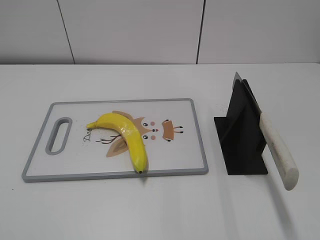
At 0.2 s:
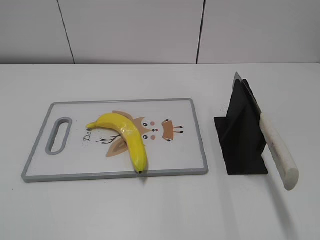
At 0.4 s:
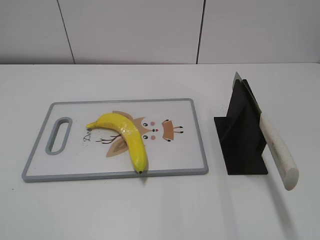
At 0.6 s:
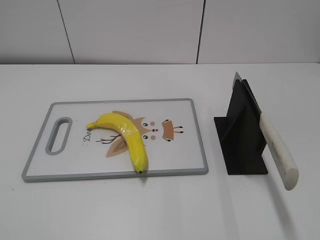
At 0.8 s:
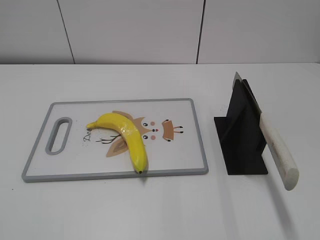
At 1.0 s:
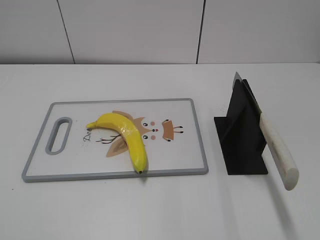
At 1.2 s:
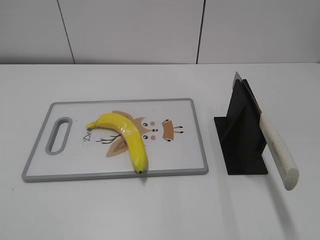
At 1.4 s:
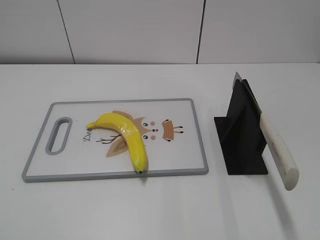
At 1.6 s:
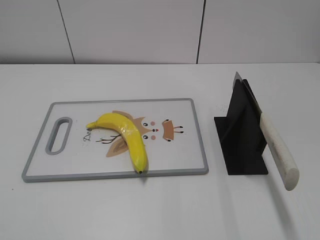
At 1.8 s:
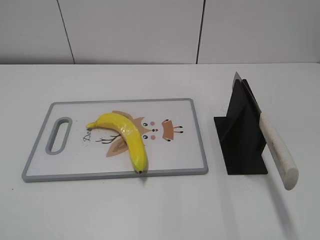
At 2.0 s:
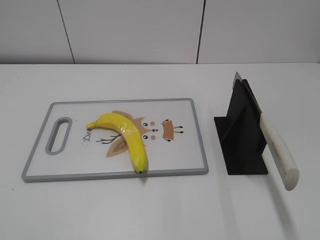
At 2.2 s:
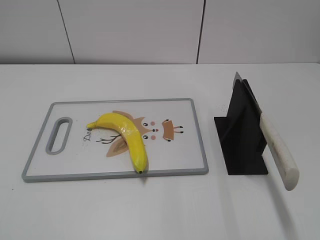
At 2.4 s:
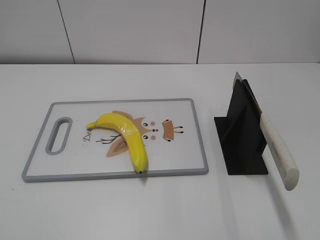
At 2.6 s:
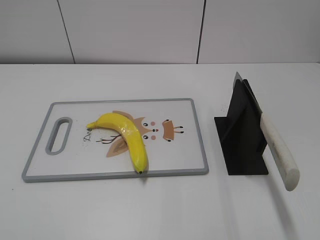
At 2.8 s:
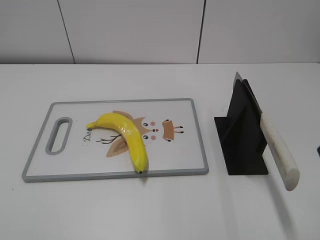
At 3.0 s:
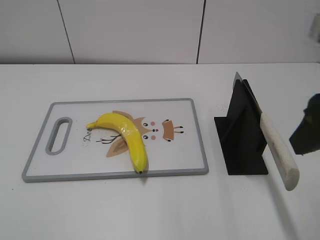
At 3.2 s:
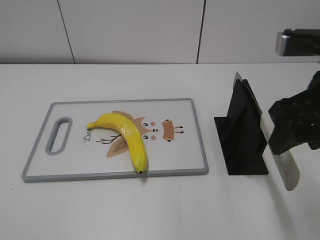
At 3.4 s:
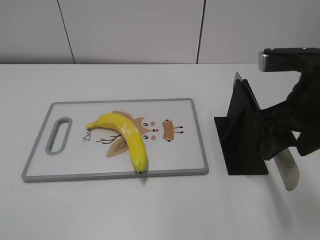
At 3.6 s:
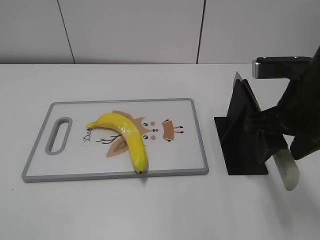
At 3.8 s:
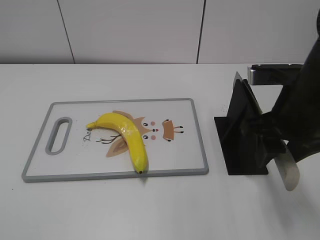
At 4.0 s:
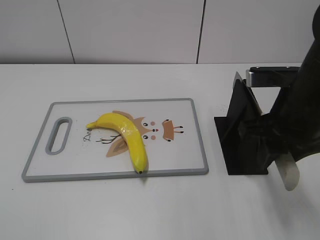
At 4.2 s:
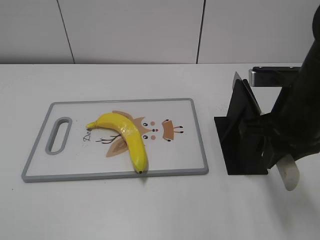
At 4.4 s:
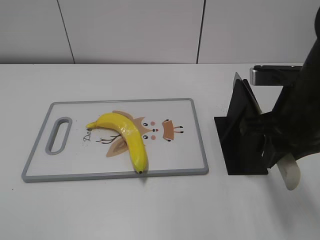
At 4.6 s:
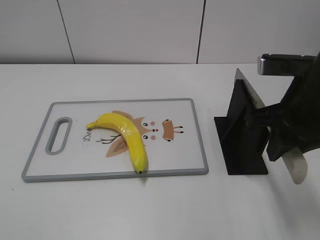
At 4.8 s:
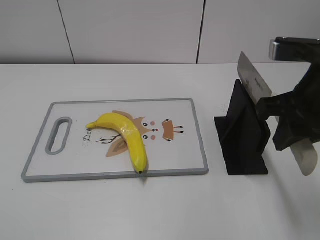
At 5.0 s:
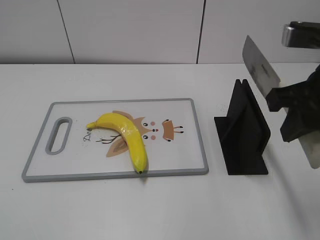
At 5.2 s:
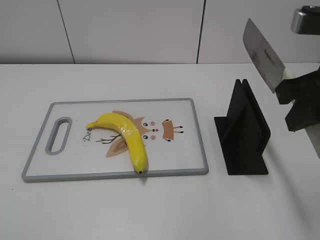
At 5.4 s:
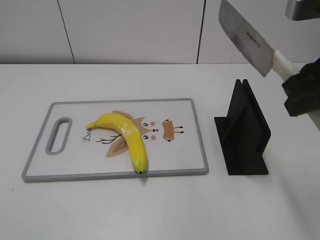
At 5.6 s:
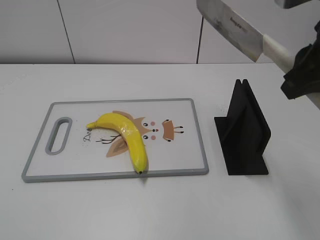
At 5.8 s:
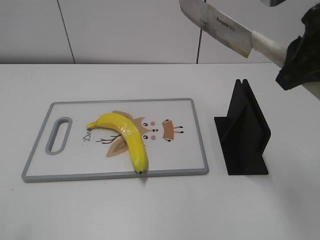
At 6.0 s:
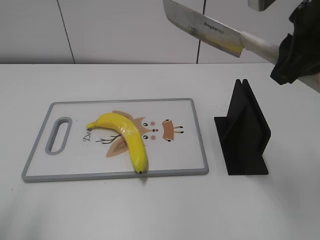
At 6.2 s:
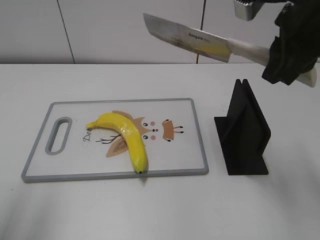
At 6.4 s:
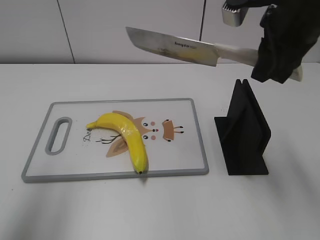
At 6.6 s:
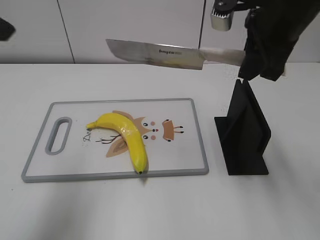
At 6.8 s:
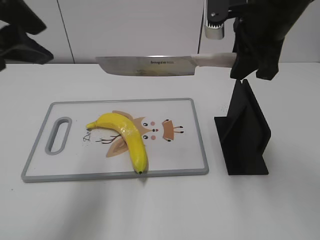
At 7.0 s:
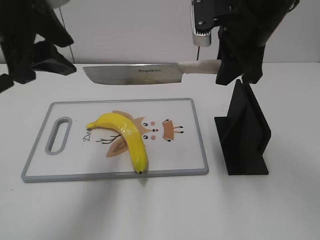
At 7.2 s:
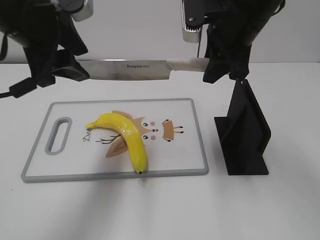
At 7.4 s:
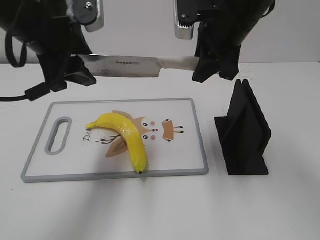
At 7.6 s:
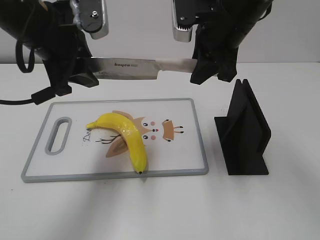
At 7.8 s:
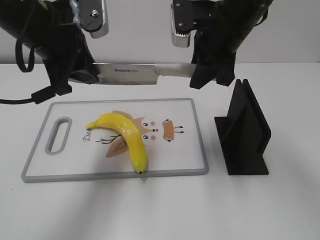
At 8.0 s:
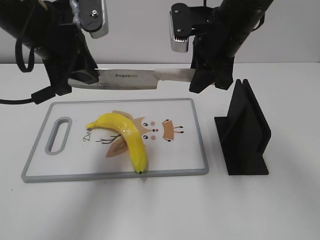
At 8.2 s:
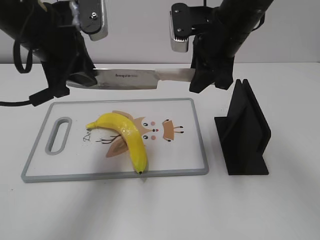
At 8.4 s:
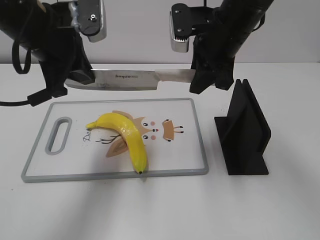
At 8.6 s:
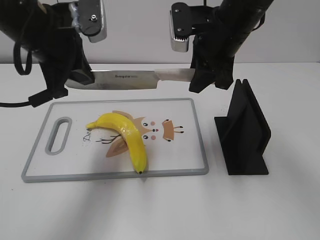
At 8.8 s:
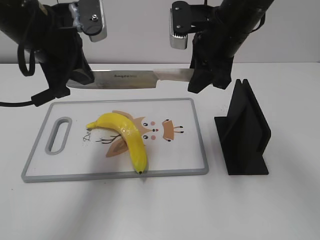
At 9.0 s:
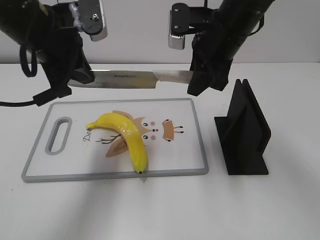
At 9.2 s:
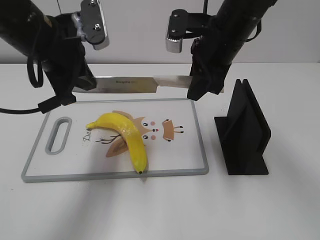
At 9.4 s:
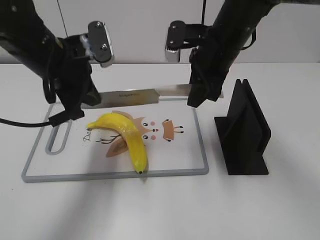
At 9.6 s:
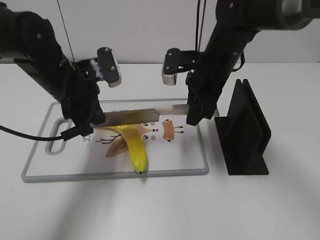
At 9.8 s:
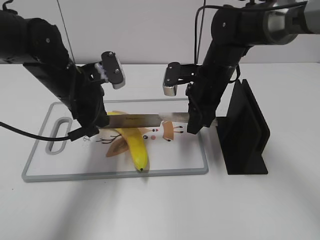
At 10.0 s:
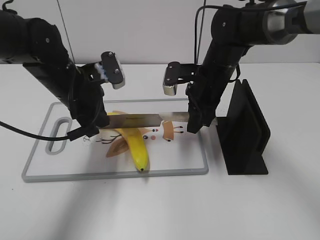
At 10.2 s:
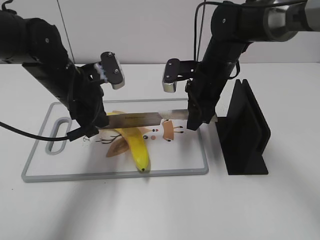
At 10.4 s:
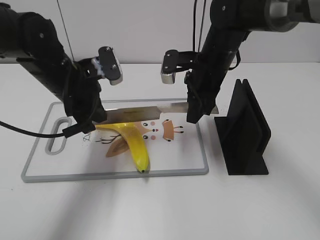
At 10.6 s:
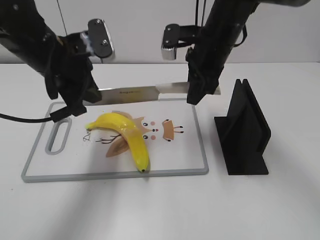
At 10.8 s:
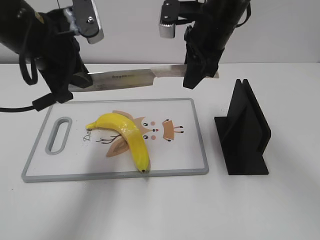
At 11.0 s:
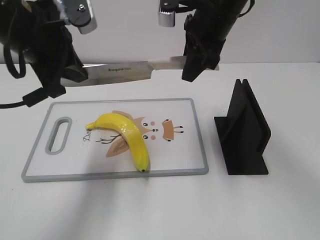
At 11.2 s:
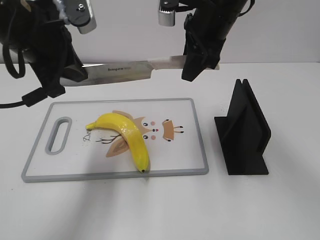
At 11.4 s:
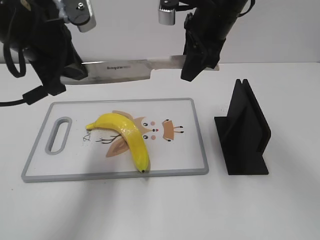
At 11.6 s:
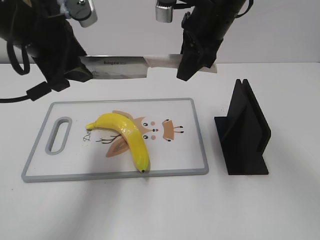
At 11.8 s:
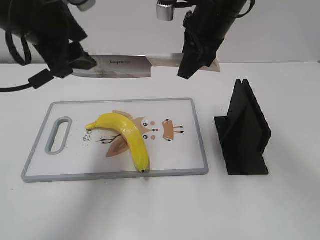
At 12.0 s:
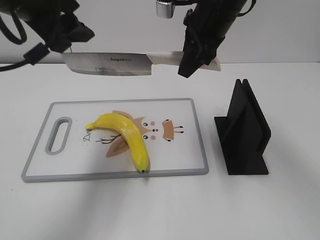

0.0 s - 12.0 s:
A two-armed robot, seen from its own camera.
Task of the whole recording: cut plastic banana.
Step, 0.0 s - 5.0 s: Grab the knife handle with your right hand.
Step, 5.2 s - 10.6 s: Lift the knife with your right hand.
1.6 s - 3.0 s: The right gripper moves forward and to the left, approximately 20 cm.
3.0 s - 4.4 s: The right gripper shifts approximately 10 cm downward and forward, and closes its fingers.
4.4 s - 6.0 s: The right gripper heads upward, covering approximately 10 cm; the left gripper moves forward and upward, some 15 cm.
6.0 s - 7.6 s: The right gripper travels forward, to the left and downward by about 15 cm, while the left gripper heads forward and to the right, covering about 25 cm.
7.6 s - 9.0 s: The left gripper closes up.
9.0 s - 10.4 s: The two grippers go roughly 10 cm downward.
10.4 s - 12.0 s: The two grippers go some 15 cm upward. The left gripper opens.

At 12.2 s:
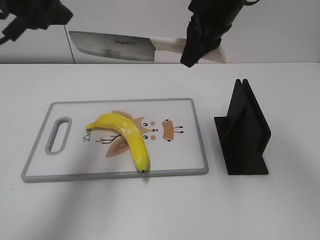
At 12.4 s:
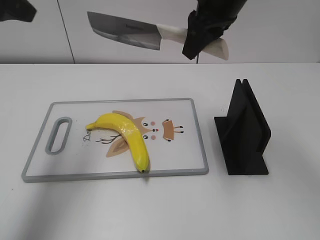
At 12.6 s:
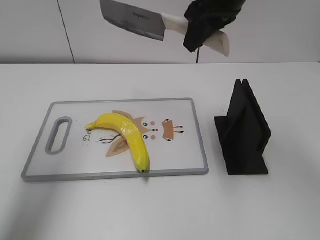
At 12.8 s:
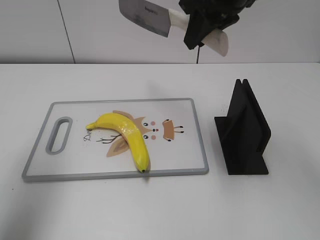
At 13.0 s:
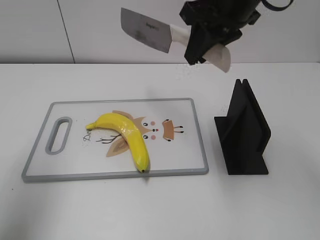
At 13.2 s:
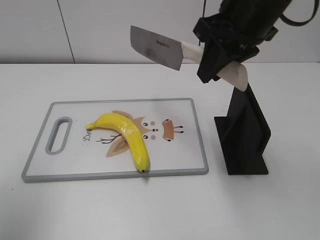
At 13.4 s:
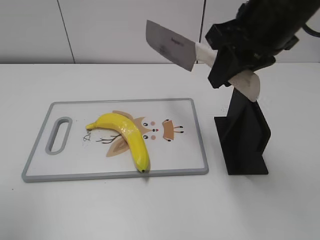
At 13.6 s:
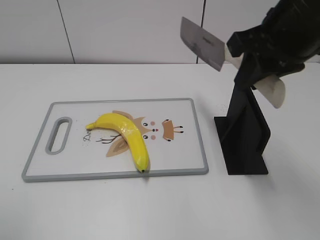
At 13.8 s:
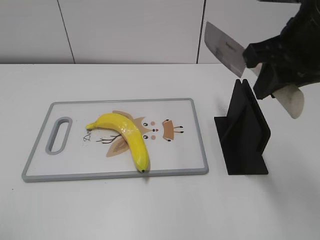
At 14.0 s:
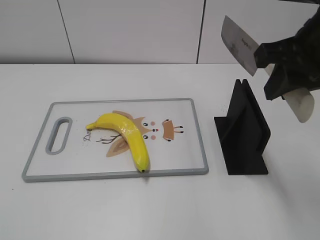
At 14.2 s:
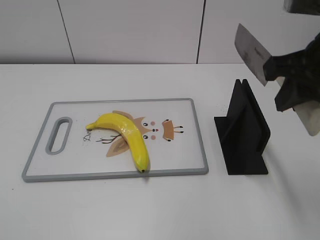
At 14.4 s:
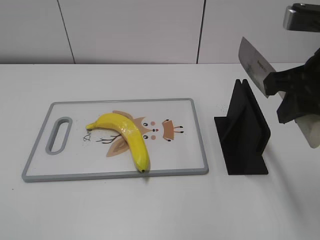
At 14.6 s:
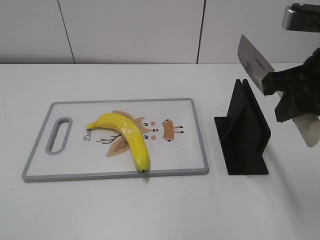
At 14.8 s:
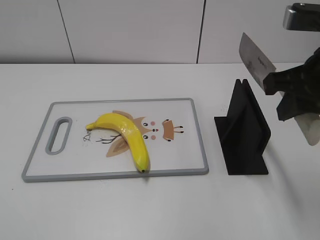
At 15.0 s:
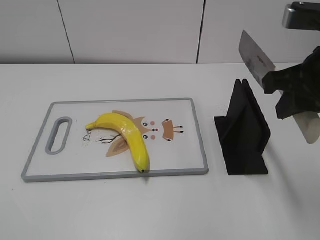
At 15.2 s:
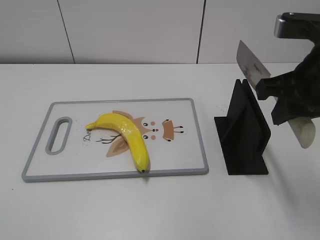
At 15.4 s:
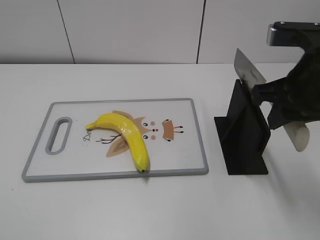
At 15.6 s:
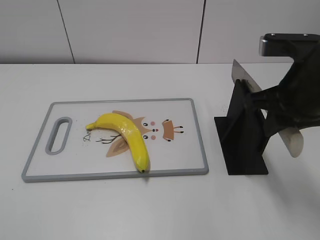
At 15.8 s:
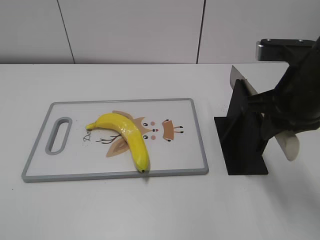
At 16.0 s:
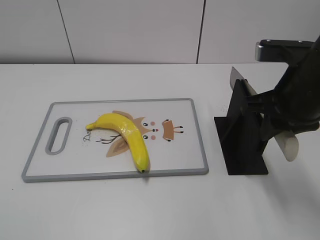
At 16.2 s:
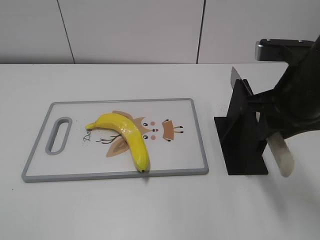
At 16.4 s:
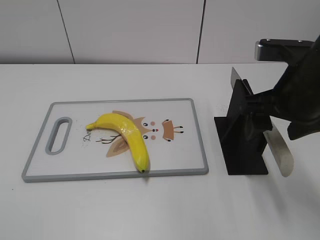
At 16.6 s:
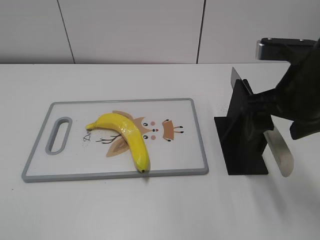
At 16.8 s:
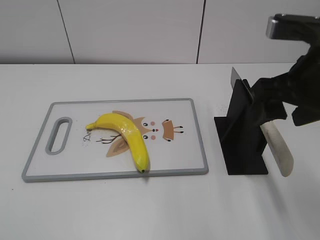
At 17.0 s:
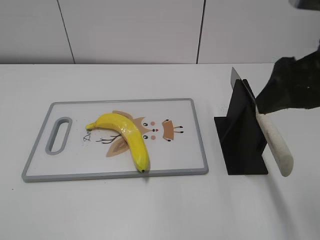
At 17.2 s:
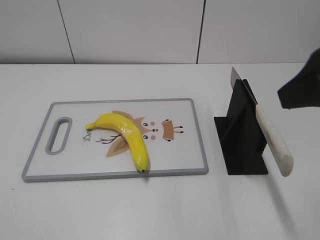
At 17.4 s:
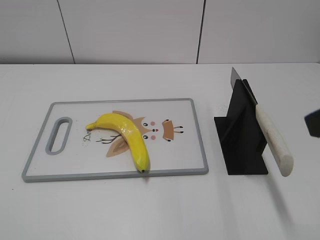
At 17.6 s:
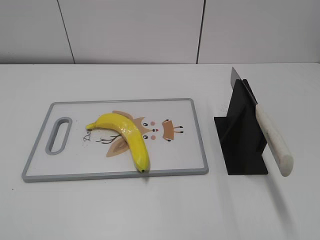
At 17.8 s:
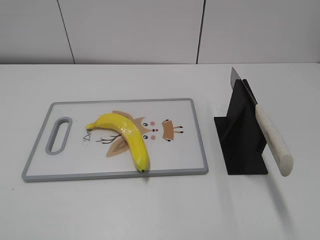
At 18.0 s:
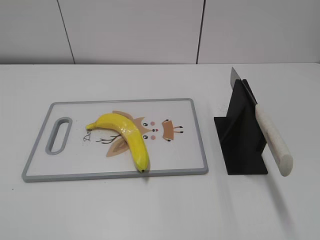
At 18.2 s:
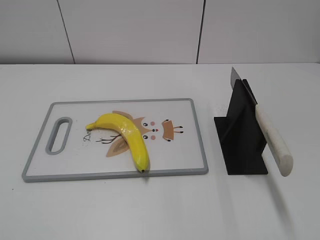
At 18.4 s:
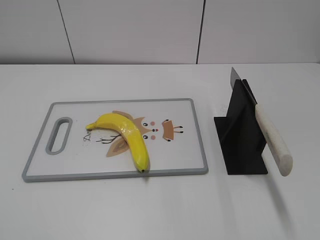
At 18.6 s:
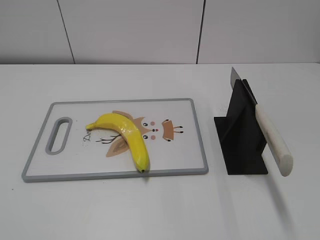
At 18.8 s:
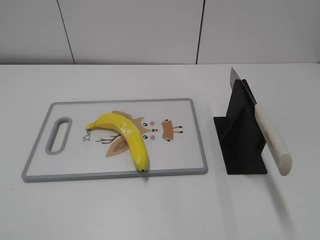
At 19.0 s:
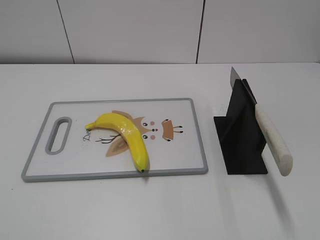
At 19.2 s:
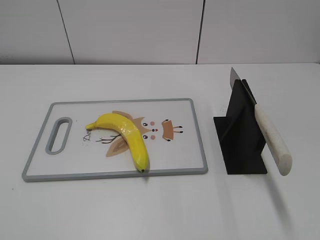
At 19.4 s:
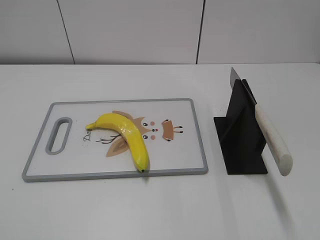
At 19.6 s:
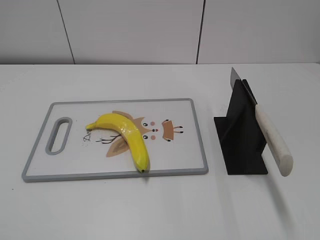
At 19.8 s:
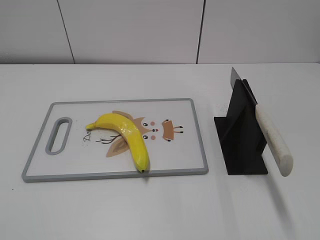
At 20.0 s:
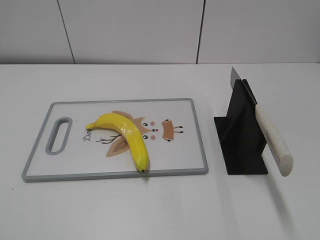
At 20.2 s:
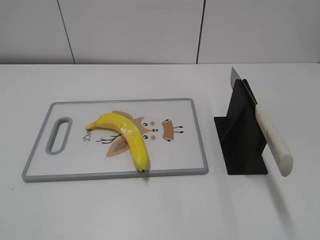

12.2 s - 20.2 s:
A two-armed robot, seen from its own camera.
Task of the whole recording: cut plastic banana.
Step, 12.6 s - 13.6 s: Lift the knife with your right hand.
Step, 13.8 s - 20.2 s: Place the knife on the storage rack with your right hand.
12.2 s - 13.8 s: The right gripper heads backward and to the right, covering some 15 cm; the left gripper moves backward and to the left, approximately 25 cm.
13.8 s - 15.4 s: The right gripper moves some 5 cm.
15.4 s - 17.0 s: The right gripper moves about 5 cm, and opens.
17.0 s - 18.6 s: The right gripper heads backward and to the right, covering some 20 cm.
